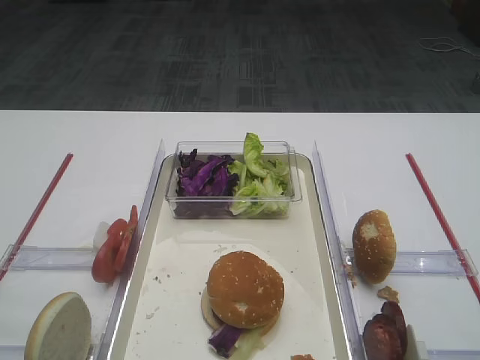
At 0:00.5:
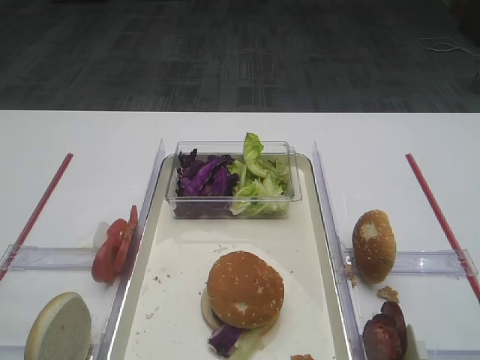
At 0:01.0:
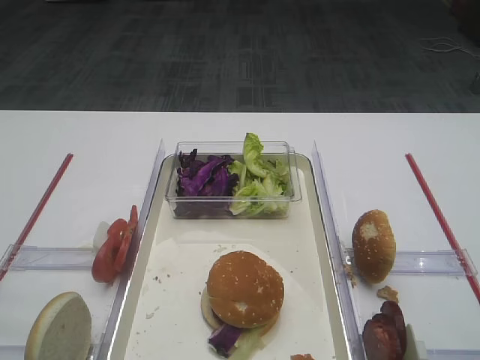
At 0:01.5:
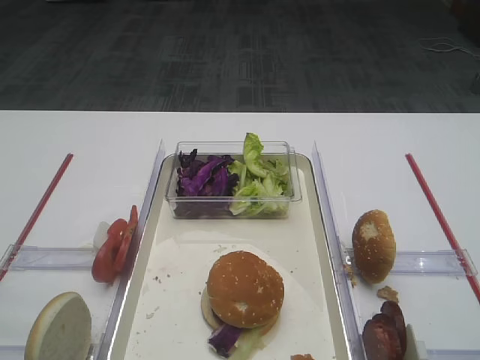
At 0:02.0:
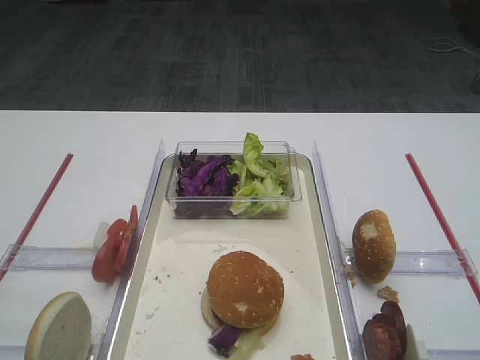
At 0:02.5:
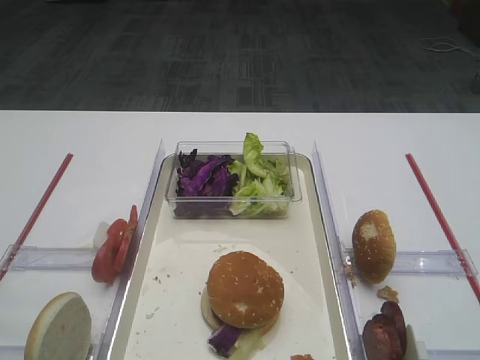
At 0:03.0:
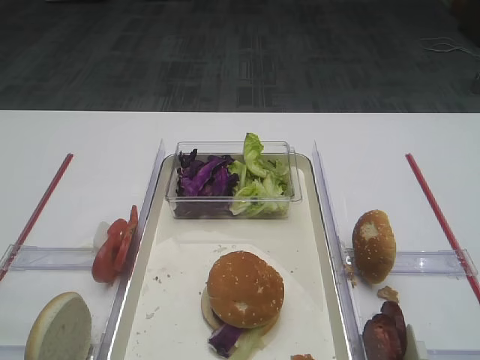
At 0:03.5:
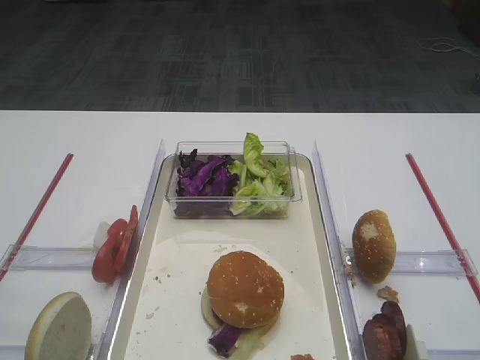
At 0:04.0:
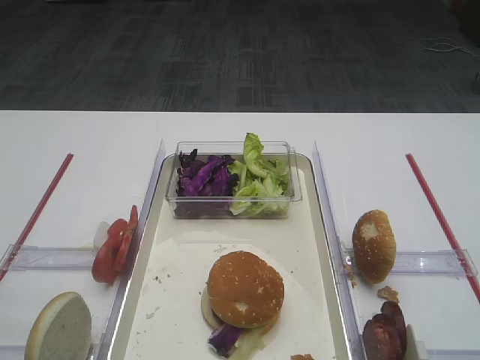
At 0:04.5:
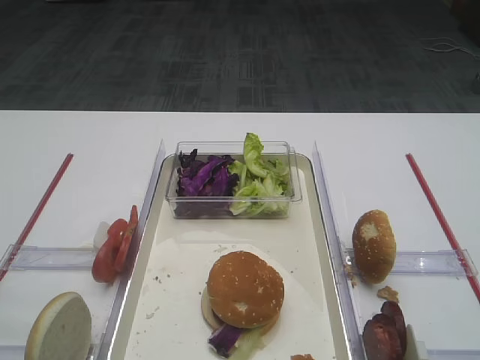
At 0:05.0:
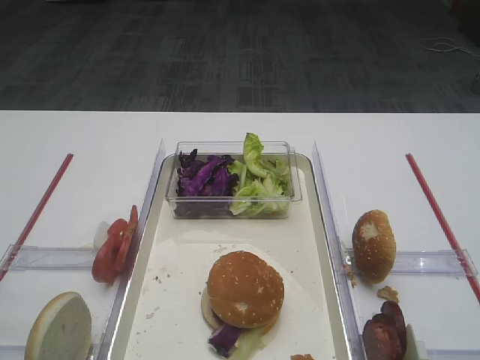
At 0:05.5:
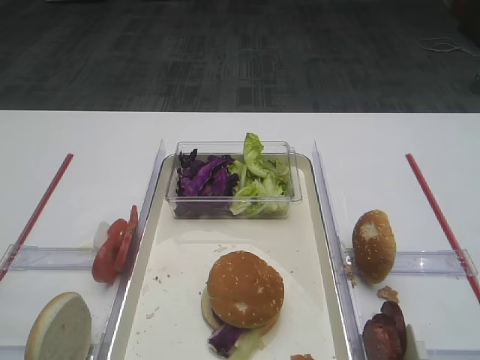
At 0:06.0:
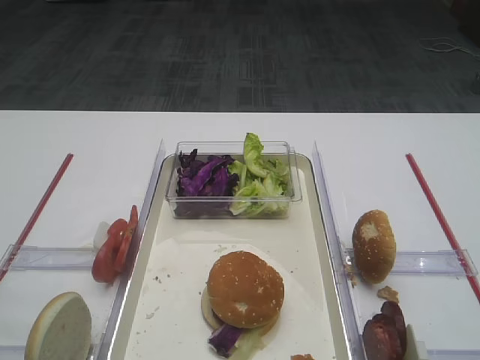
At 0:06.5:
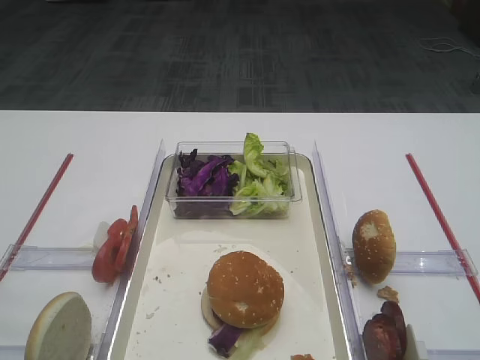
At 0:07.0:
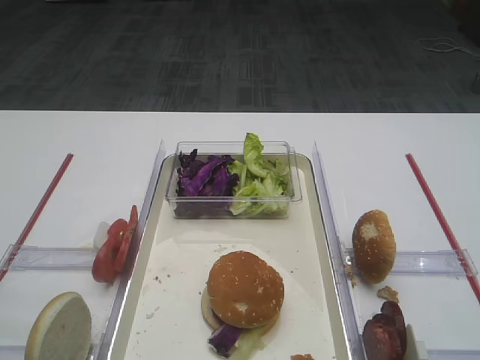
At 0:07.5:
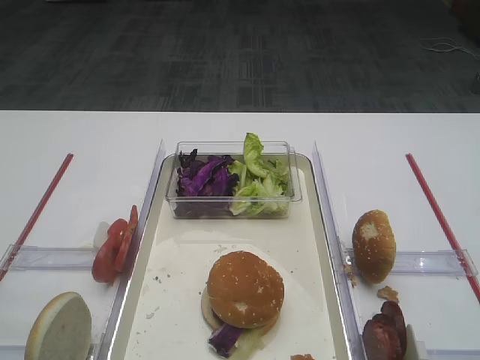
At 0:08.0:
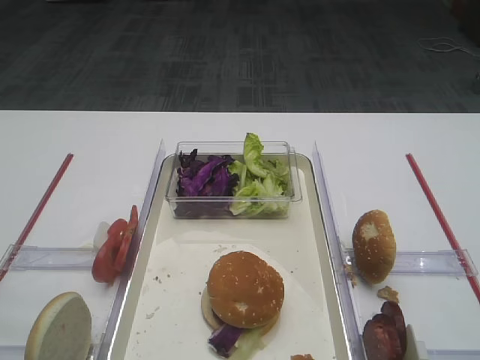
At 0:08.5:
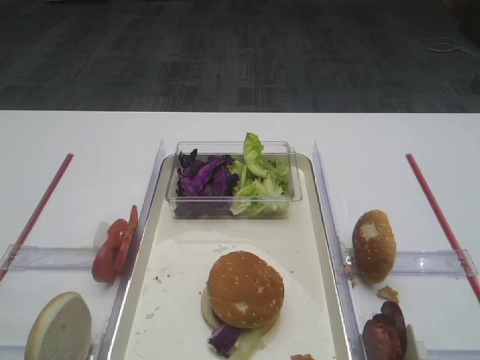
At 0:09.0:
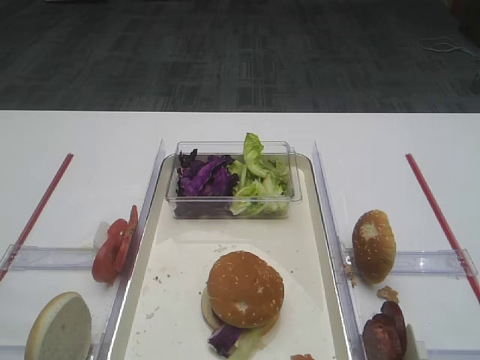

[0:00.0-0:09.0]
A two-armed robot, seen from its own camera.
0:04.5 to 0:09.0: Both grippers stay about where they are.

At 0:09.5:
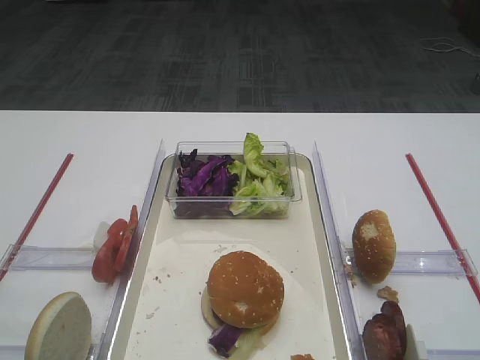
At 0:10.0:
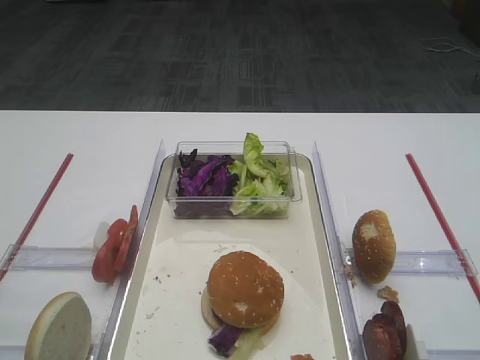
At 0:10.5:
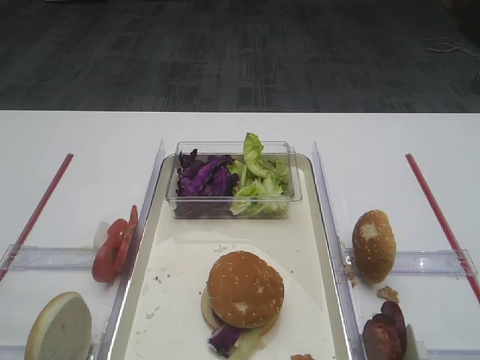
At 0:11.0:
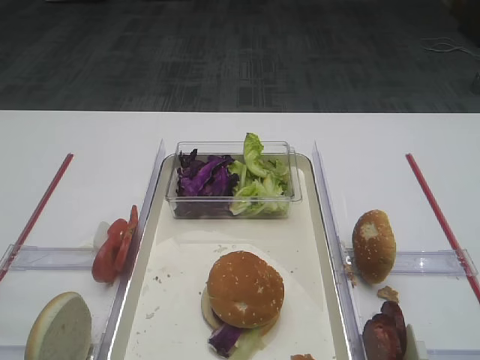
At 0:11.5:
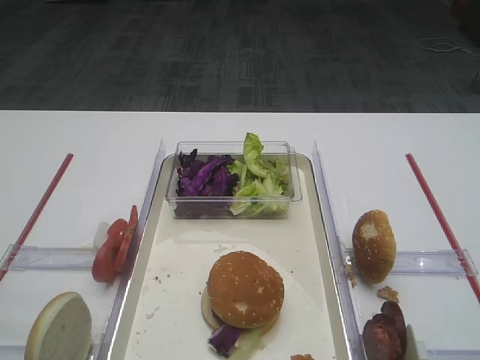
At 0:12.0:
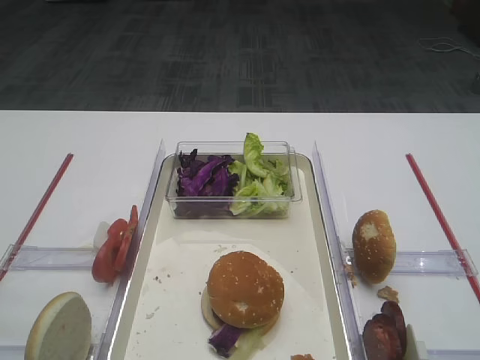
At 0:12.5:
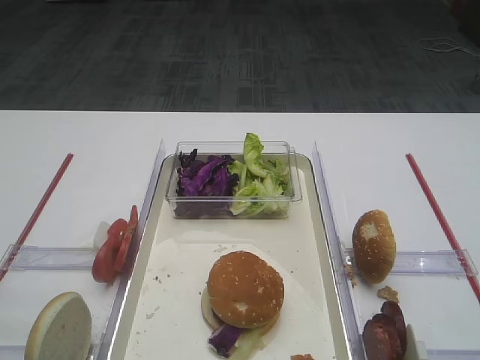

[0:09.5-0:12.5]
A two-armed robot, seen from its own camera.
0:09.5 to 0:12.5: Both grippers stay about where they are.

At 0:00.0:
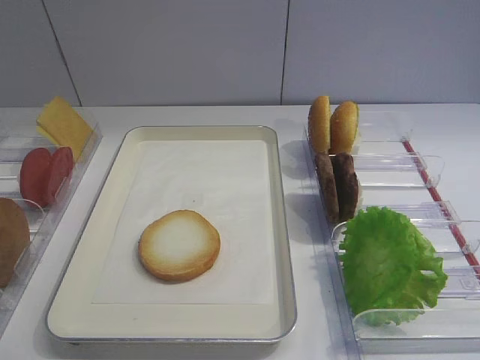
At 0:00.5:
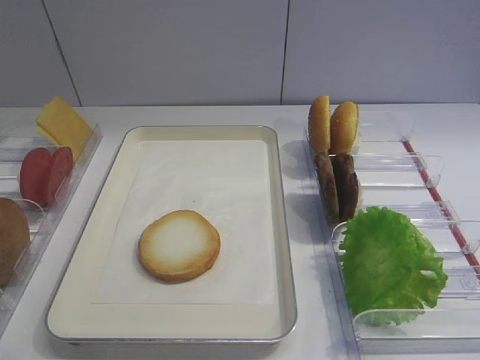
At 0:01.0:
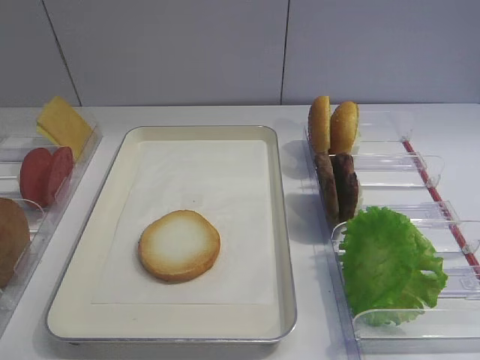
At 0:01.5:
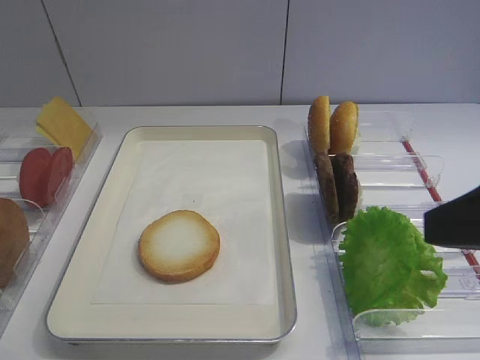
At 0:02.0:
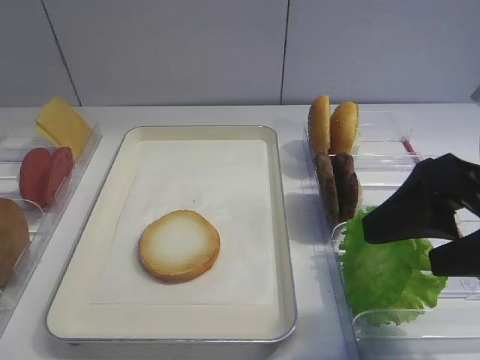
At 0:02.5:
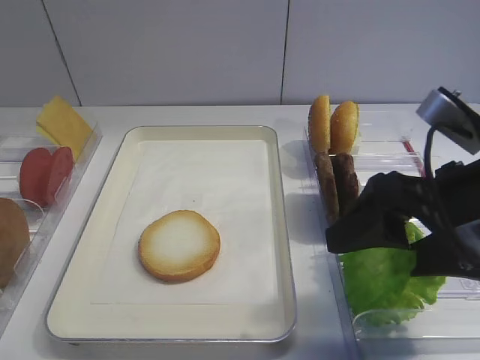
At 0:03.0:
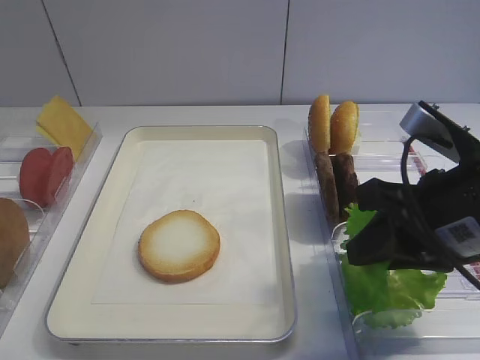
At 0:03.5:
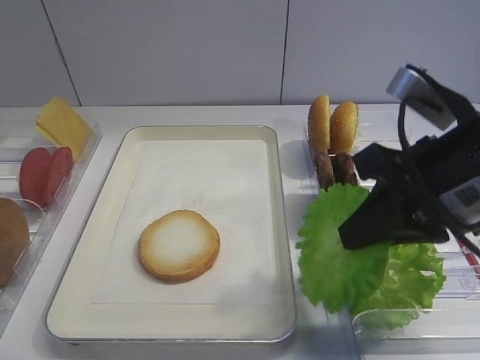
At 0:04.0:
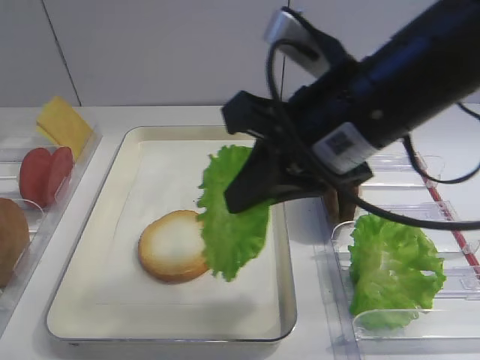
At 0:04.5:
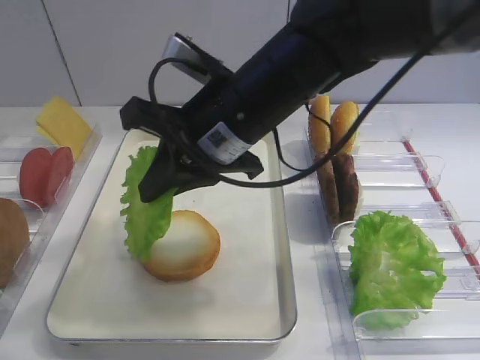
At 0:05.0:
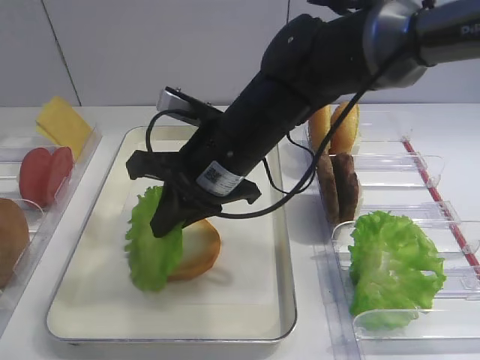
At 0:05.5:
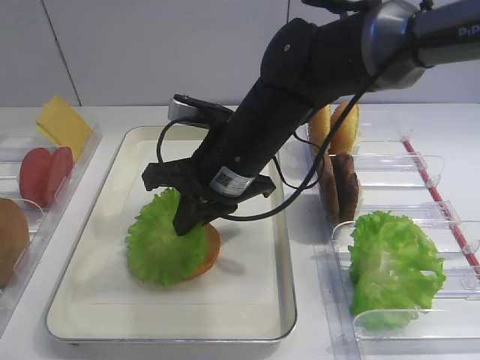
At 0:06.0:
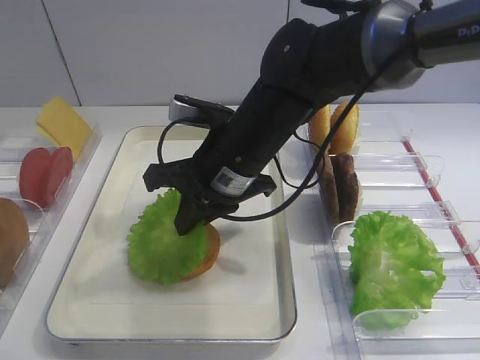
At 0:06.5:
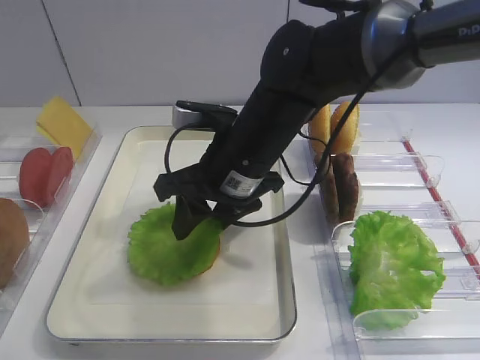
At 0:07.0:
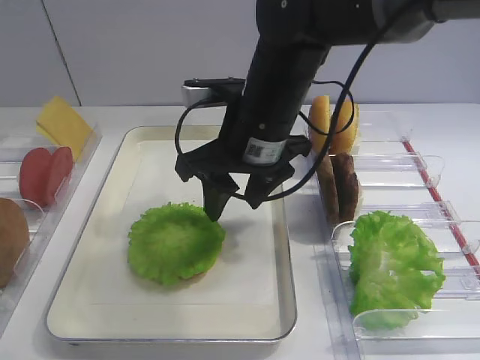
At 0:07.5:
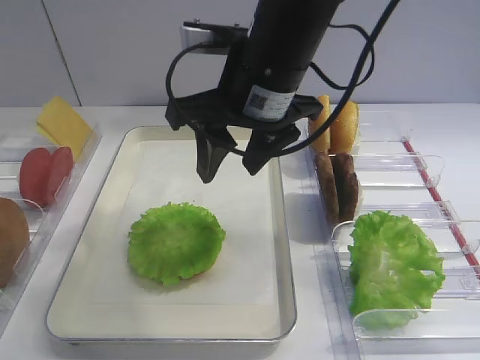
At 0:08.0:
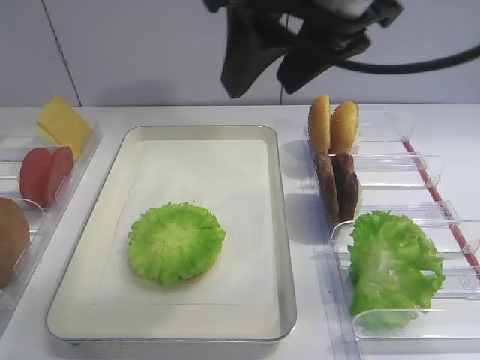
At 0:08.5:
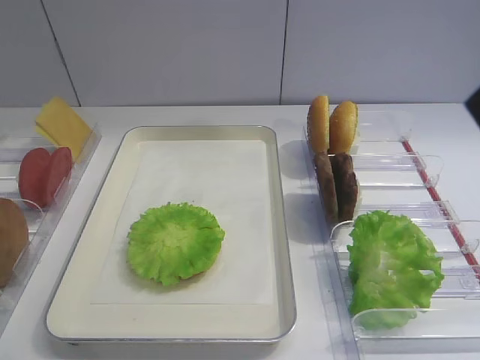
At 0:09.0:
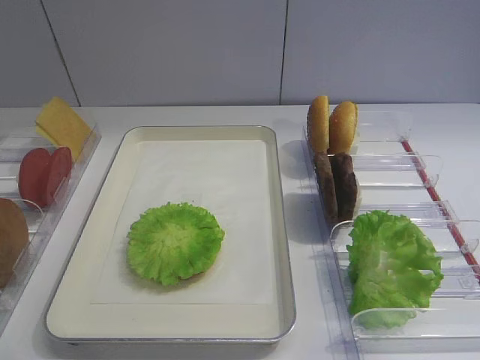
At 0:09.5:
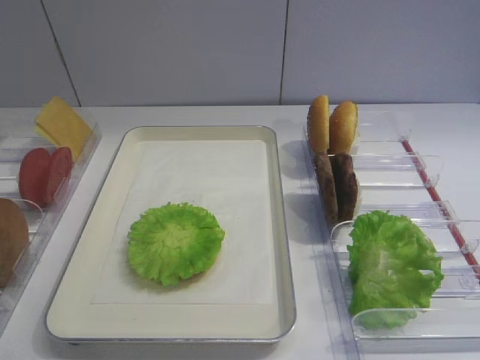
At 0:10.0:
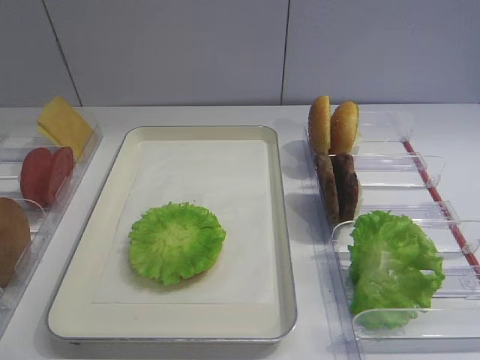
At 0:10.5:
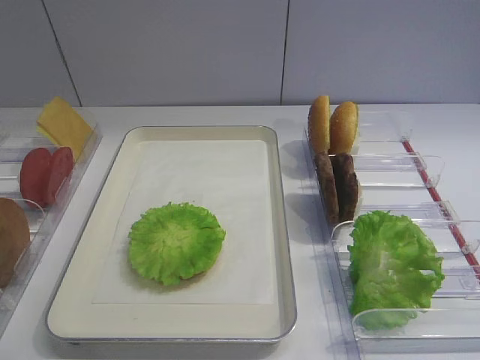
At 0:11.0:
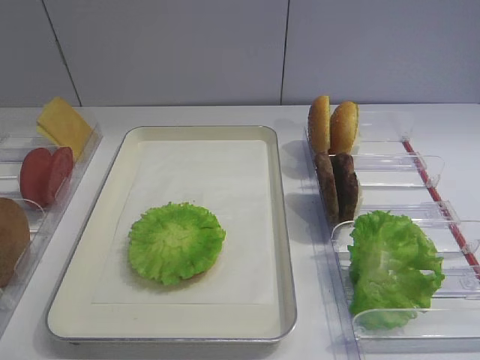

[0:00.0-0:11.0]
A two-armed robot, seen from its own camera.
Step, 0:00.0 to 0:03.5: Pick up the lettuce leaf with the right gripper.
Step, 0:04.0 to 0:06.5: Place the lettuce leaf on the bread slice with the right gripper.
0:02.0 to 0:03.5: The right gripper changes place by approximately 5 cm, and closes its fingers.
0:03.5 to 0:05.5: The right gripper travels to the left and forward by some 20 cm.
0:05.5 to 0:07.5: The right gripper travels upward by approximately 10 cm, and opens up.
0:07.5 to 0:09.0: The right gripper travels backward and to the right by some 35 cm.
0:09.0 to 0:11.0: The right gripper shifts approximately 10 cm downward.

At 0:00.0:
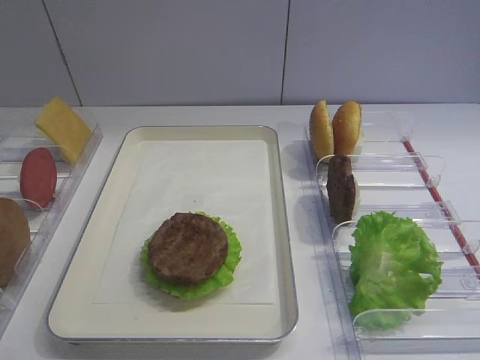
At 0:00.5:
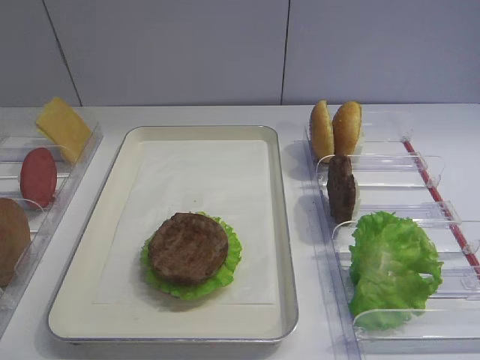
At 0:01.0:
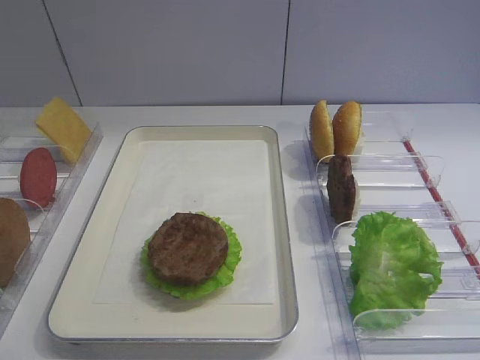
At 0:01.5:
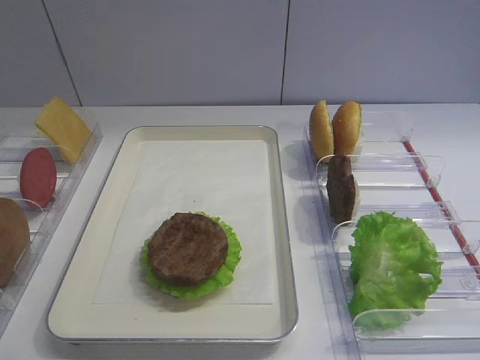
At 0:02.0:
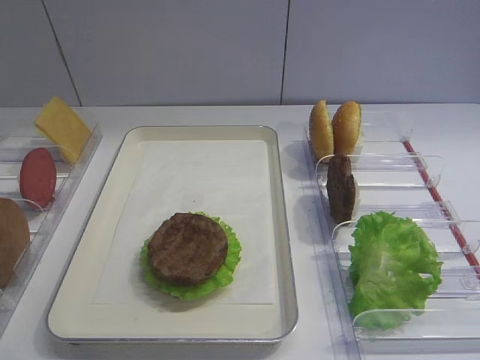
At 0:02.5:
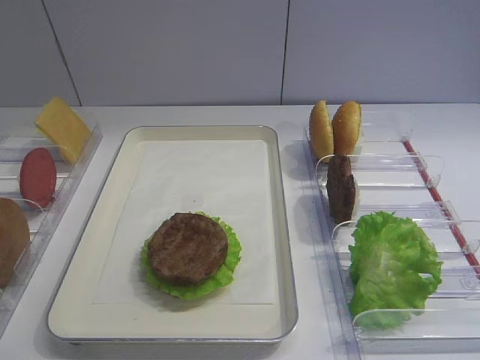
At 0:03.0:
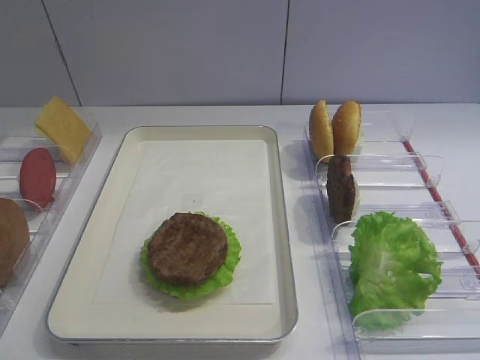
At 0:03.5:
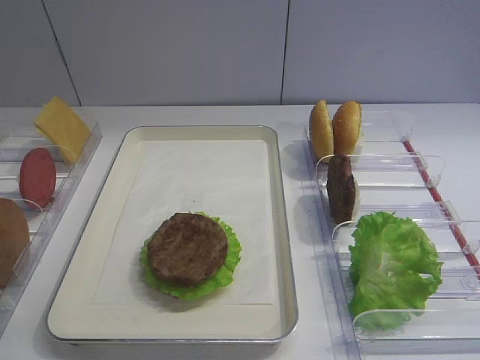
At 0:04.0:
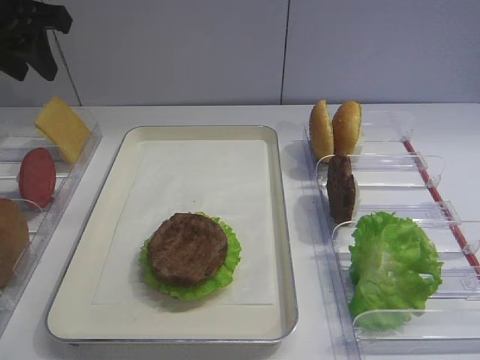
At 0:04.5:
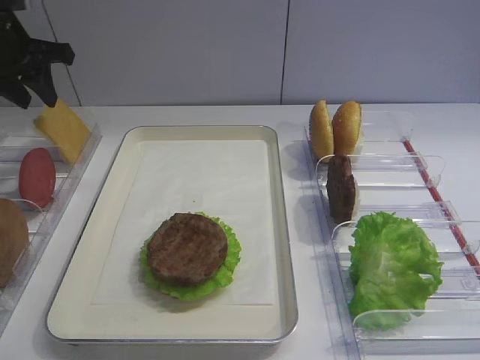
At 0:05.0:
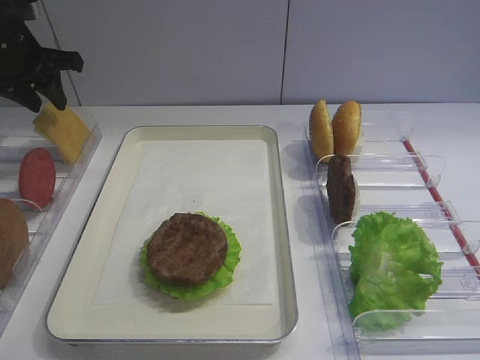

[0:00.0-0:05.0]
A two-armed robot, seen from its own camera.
0:02.5 to 0:05.0: The left gripper travels forward by approximately 40 cm.
